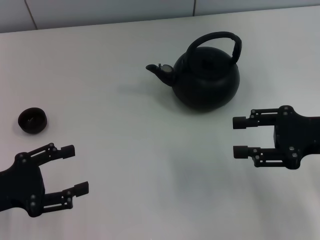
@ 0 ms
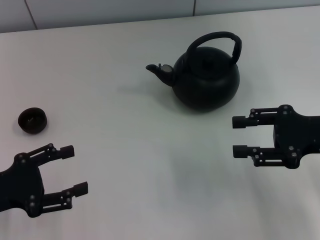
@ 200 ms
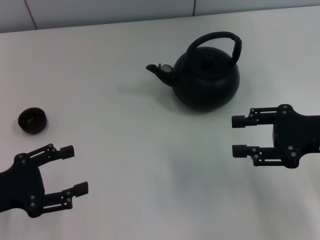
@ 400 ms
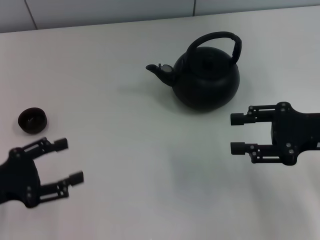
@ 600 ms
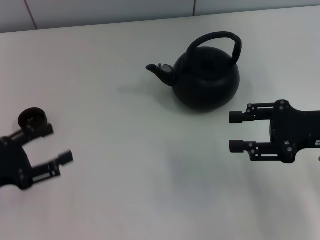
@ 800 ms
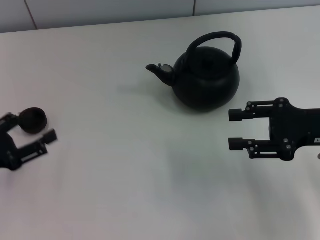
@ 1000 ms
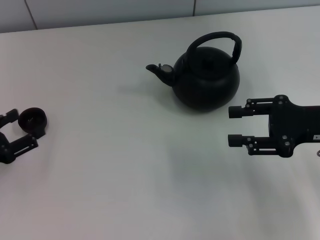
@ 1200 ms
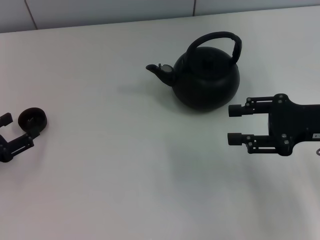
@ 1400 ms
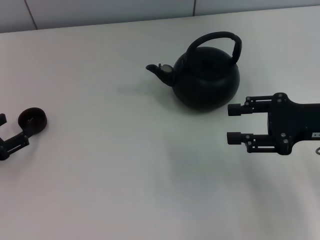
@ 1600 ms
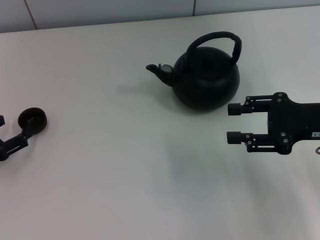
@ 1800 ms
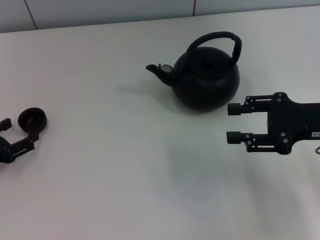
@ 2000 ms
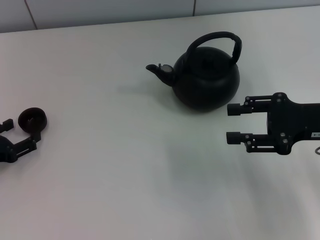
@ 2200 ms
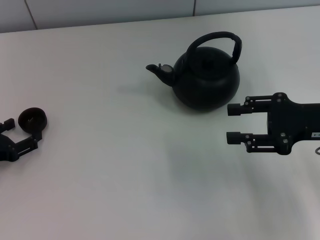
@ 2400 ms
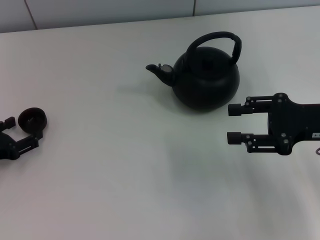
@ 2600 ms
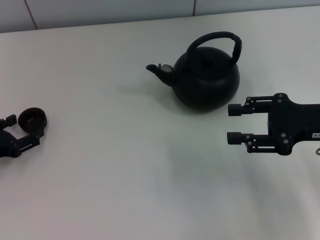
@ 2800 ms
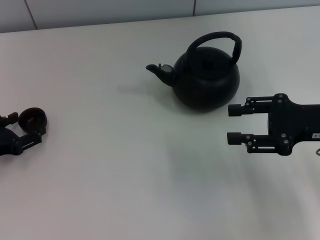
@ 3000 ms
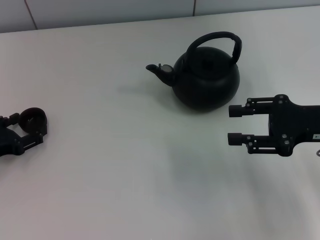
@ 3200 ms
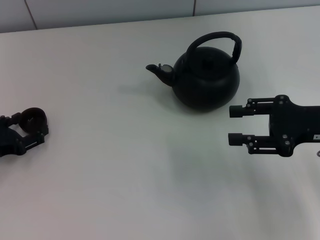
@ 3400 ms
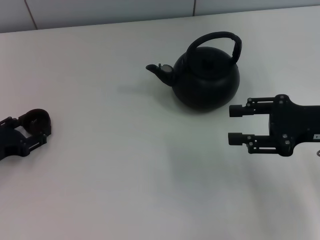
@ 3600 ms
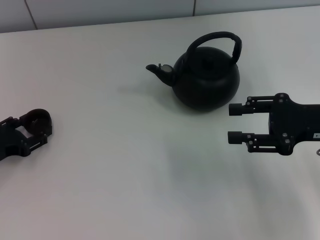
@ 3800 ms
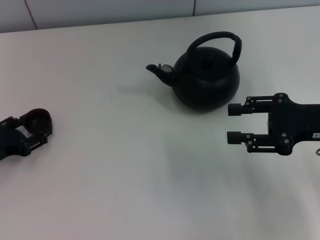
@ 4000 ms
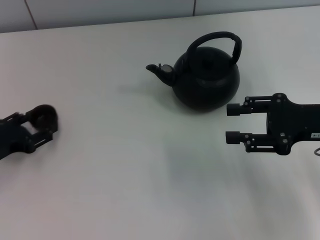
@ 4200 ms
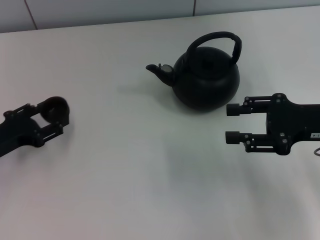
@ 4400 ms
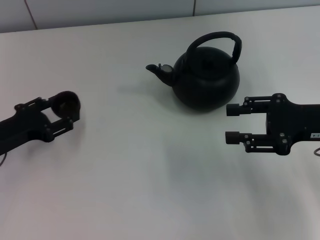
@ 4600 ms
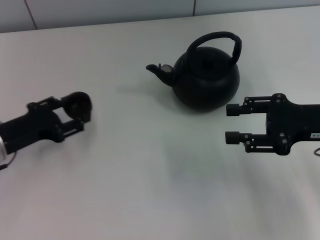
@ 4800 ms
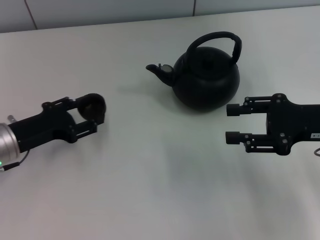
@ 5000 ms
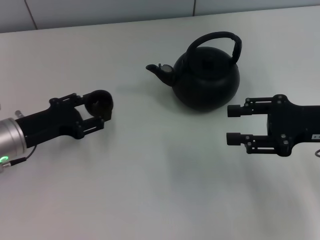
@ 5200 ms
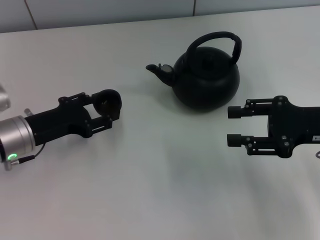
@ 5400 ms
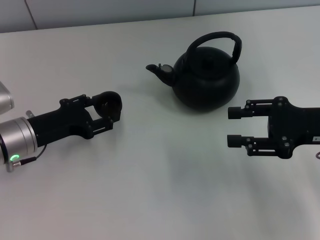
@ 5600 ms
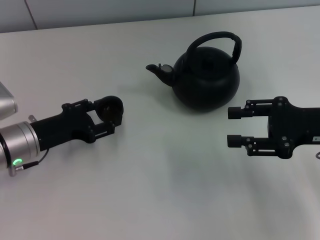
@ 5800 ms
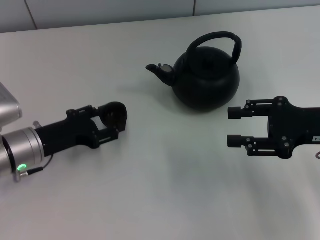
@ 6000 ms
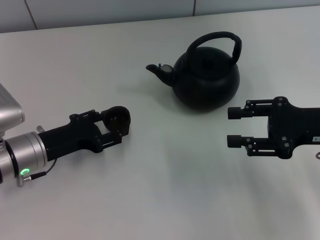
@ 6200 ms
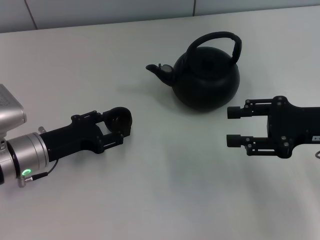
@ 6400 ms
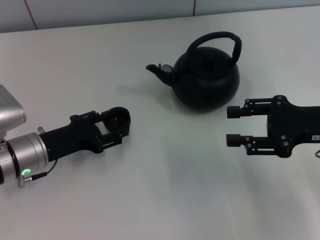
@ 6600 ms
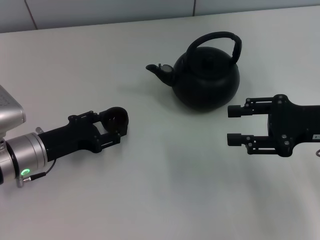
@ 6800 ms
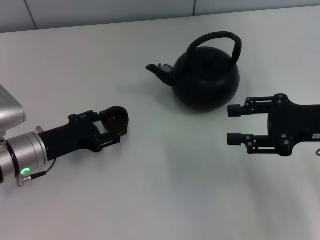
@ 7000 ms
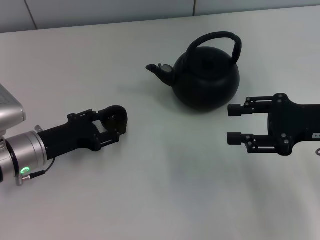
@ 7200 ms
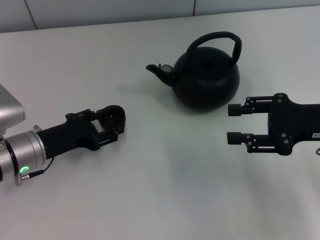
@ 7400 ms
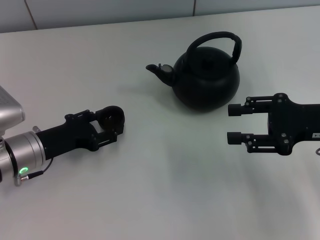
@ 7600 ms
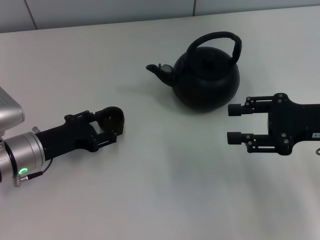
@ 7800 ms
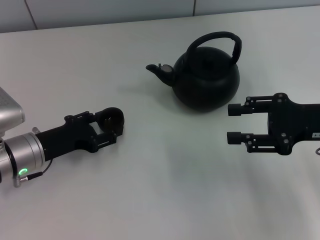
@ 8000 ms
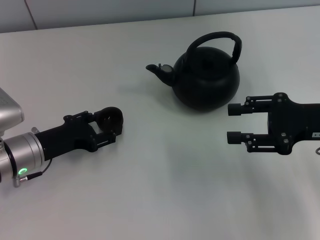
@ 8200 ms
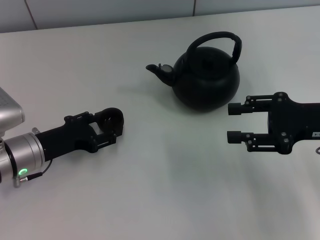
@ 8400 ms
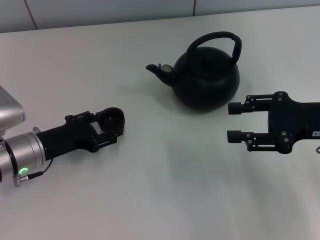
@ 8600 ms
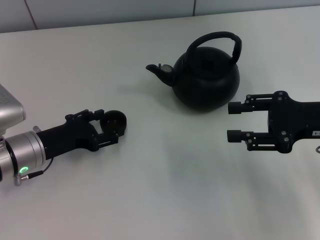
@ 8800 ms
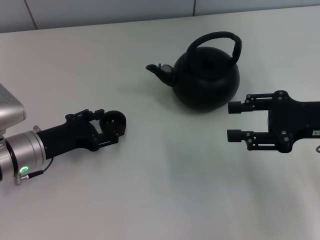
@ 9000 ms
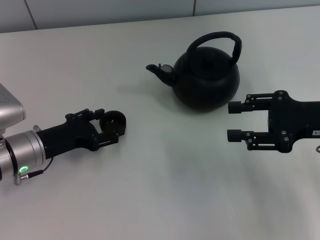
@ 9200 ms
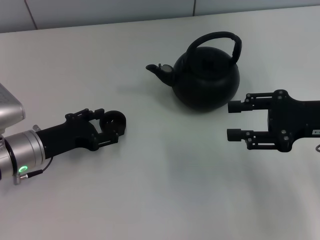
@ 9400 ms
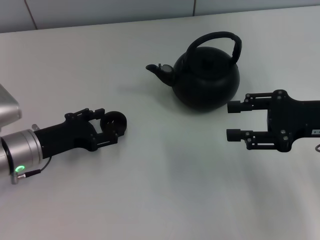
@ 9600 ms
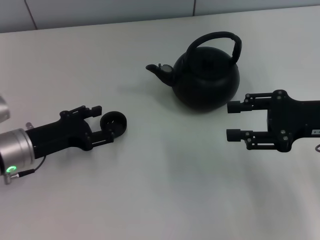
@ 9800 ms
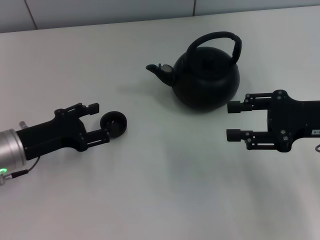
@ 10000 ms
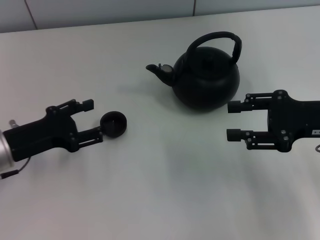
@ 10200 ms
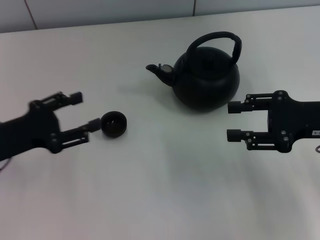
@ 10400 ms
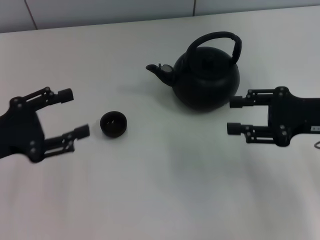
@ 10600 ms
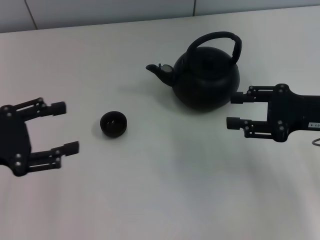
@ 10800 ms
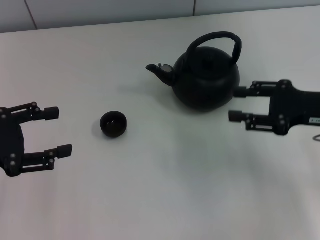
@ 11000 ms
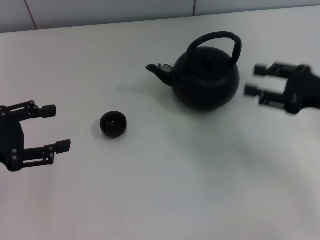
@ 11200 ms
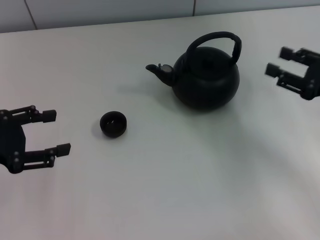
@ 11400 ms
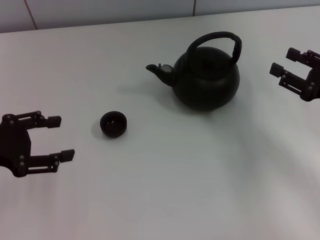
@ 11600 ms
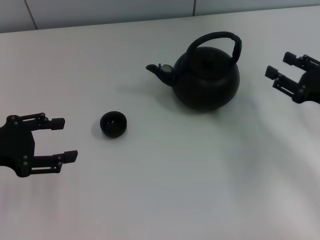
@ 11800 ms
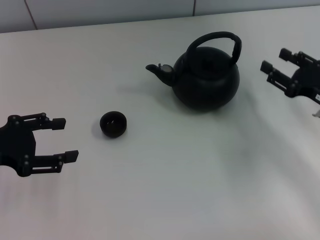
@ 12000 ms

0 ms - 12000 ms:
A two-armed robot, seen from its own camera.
Task of the whole recording: Grasp the handle of the teapot with one hand and pour tea into the teacup.
Step, 0 ms - 8200 ms: Pick up the teacup with the left gripper.
Step, 8400 ms - 11000 ms: Place the teacup in the center of view with the left gripper.
0 ms - 1600 ms: The left gripper moves approximately 5 cm.
1600 ms - 3000 ms: There are only small adjustments of the grippers.
3000 ms - 4400 ms: The left gripper closes.
4400 ms - 6000 ms: The left gripper is displaced to the right by some 5 cm.
6000 ms - 7600 ms: Both grippers stay put.
7600 ms - 9000 ms: The left gripper opens up.
9000 ms - 10400 ms: The left gripper moves upward and to the left, roughly 10 cm.
10400 ms - 12000 ms: The right gripper is displaced downward by some 5 cm, while the left gripper ends up approximately 5 cm from where it was.

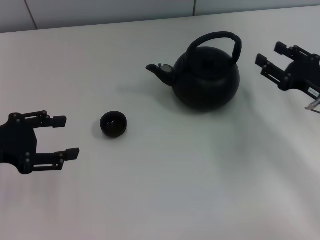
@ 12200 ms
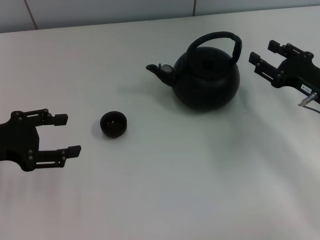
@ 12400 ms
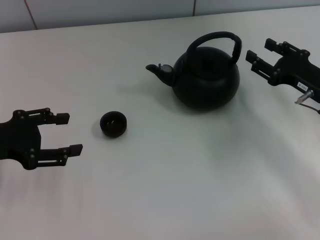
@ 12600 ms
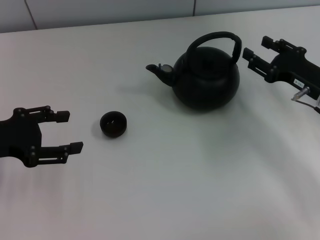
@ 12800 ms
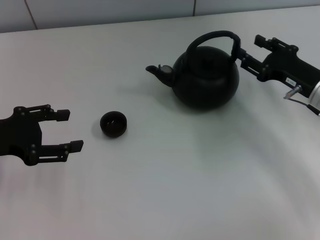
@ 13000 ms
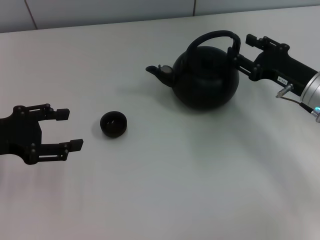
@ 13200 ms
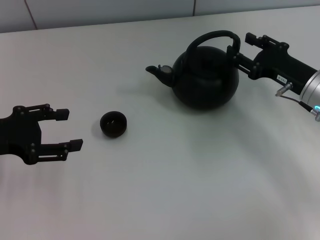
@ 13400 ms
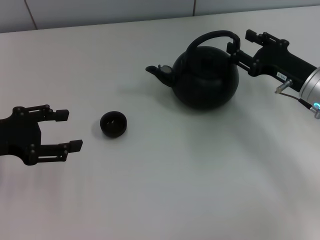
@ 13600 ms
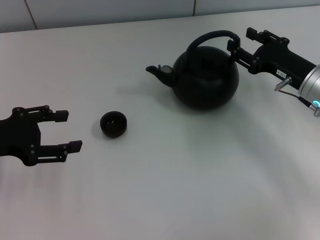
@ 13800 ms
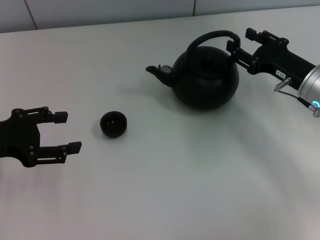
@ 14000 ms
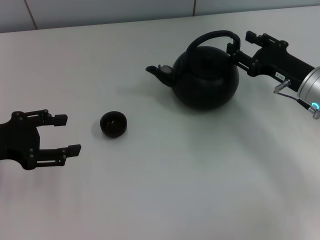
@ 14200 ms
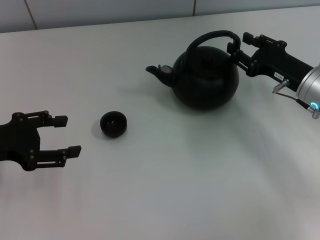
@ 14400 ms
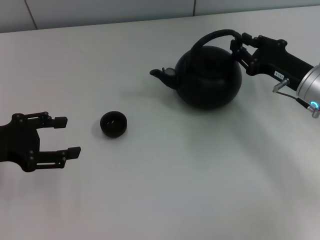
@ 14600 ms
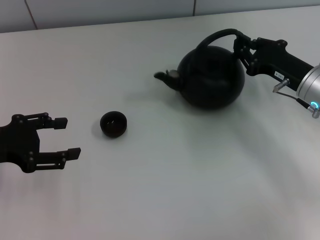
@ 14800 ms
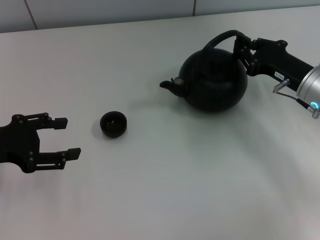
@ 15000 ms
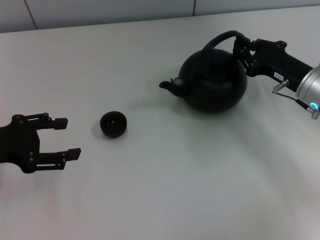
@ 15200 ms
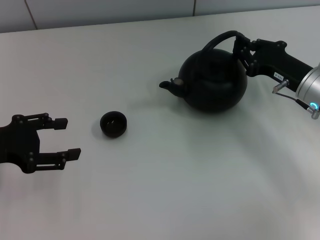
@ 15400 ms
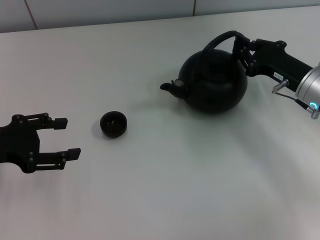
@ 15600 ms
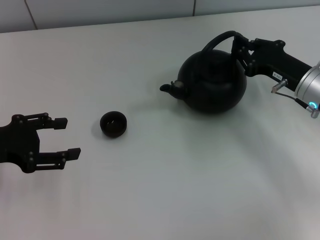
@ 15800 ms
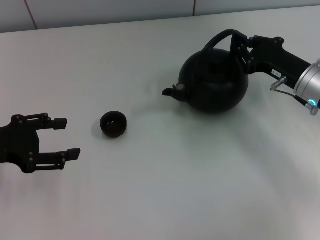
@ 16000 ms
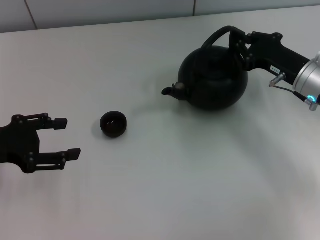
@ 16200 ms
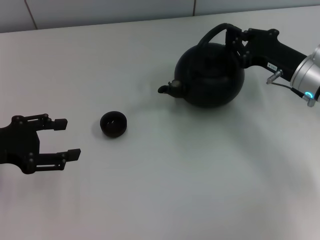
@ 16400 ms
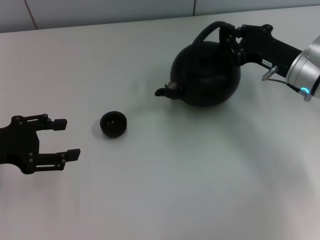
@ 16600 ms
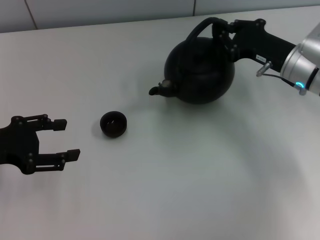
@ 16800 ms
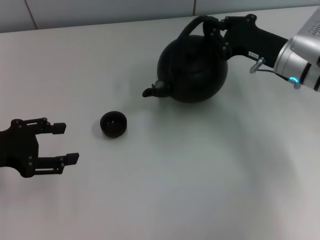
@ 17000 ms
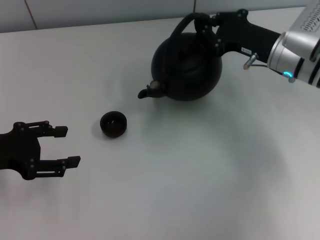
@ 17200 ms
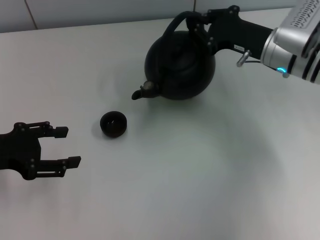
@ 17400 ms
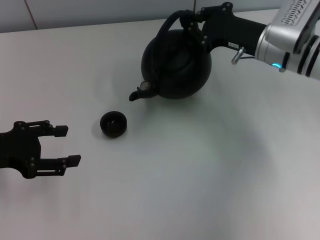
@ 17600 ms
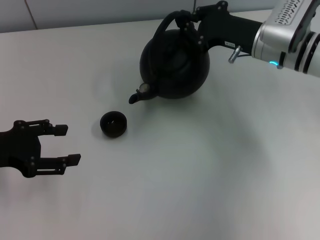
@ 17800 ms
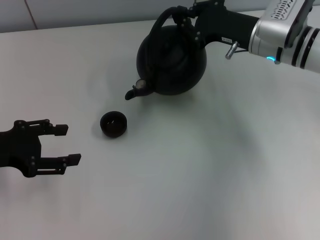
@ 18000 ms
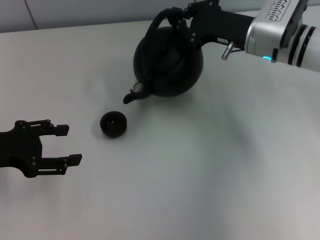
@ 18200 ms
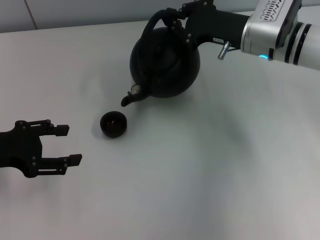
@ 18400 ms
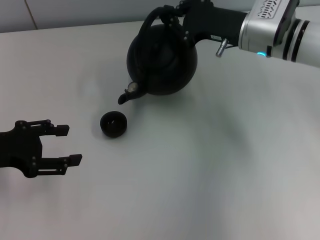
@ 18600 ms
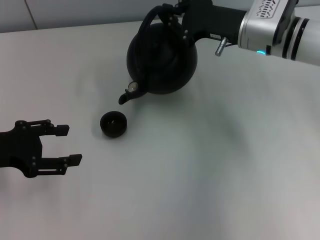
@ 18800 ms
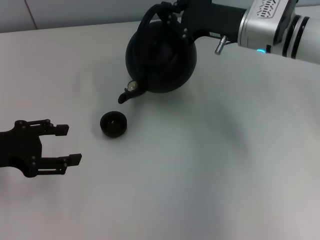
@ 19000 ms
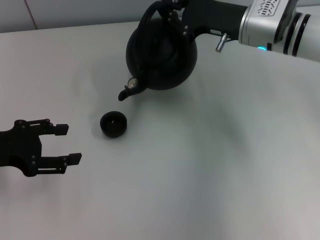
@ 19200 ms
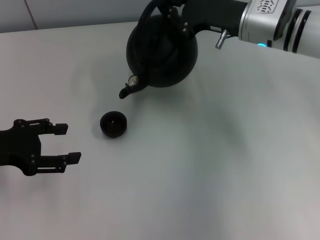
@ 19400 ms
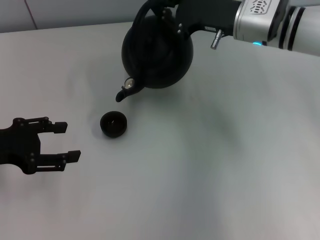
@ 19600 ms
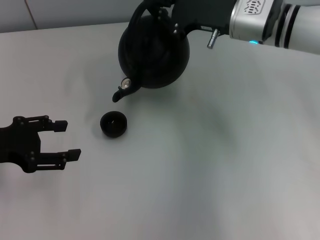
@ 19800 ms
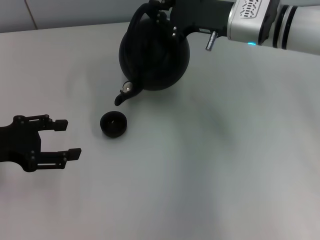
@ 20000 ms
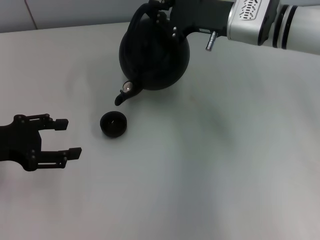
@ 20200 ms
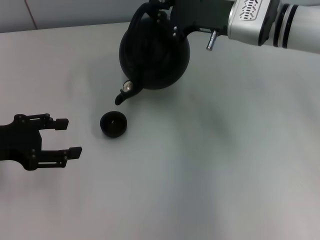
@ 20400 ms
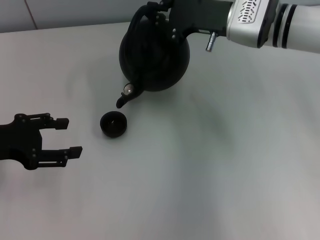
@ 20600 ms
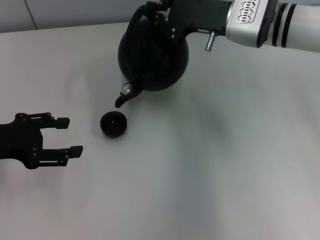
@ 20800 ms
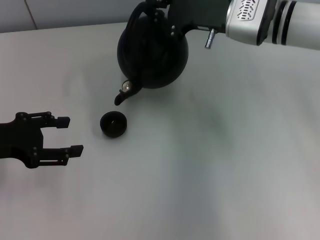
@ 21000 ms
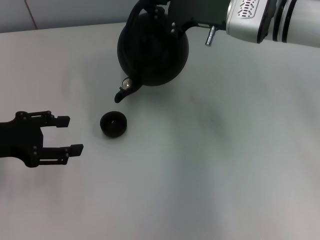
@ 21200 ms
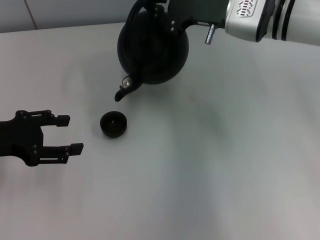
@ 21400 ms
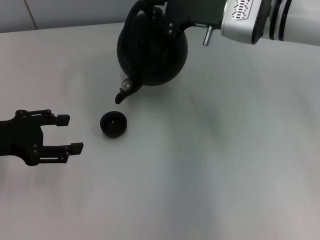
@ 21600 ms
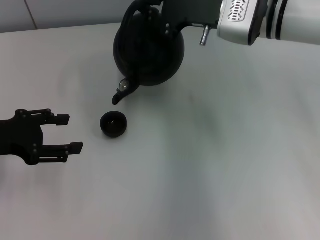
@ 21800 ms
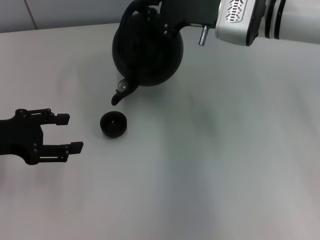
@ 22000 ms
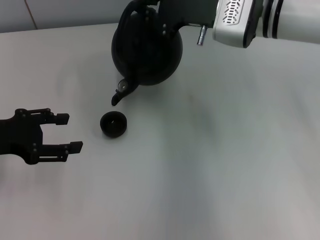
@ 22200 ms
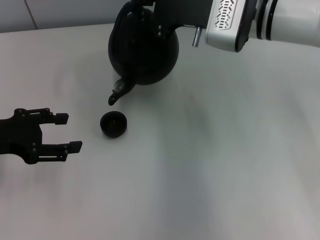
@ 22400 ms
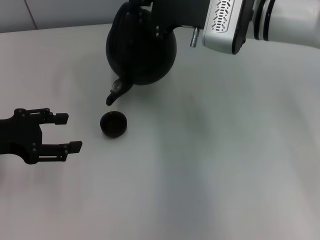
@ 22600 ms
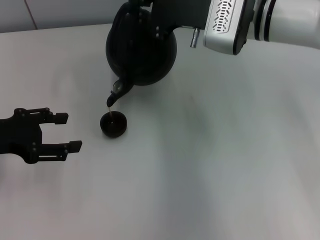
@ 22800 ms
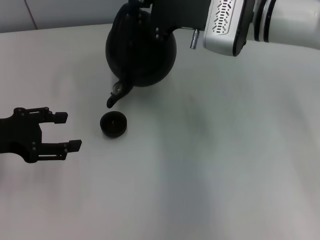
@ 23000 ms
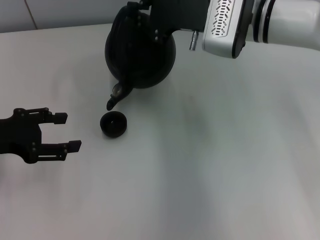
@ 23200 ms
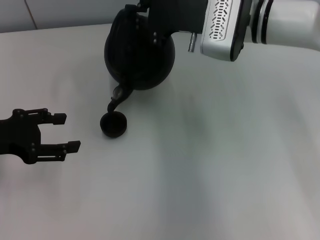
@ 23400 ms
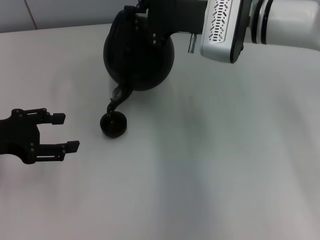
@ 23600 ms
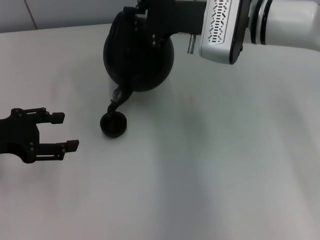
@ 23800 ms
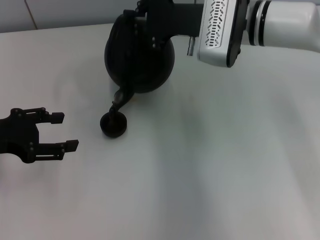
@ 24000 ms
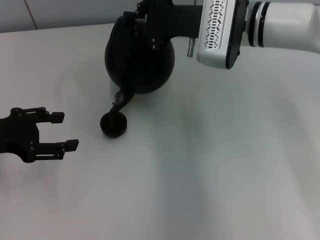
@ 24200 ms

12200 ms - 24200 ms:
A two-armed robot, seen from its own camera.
Task of the whole recording: Grasp the handle of the teapot with one hand and pour tea into the teacup.
Step, 12200 ms - 19200 ms: Pick up the teapot with the right gripper.
12200 ms - 13800 ms: The right gripper ends up roughly 5 cm from where it was.
13800 ms - 15200 ms: The right gripper closes its fingers.
15200 ms - 16600 ms: The grippers stay close to where they were, moving slightly.
16600 ms - 18200 ms: The right gripper travels to the left by approximately 5 cm.
18200 ms - 21200 ms: The grippers move only a little.
21200 ms - 24200 ms: The grippers move only a little.
